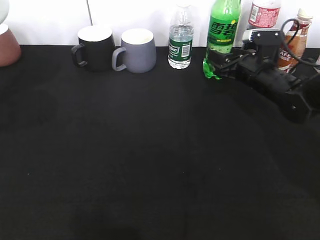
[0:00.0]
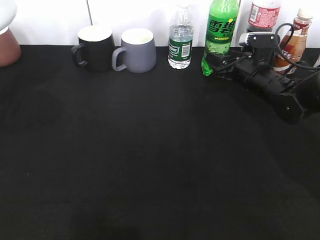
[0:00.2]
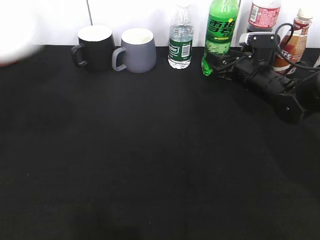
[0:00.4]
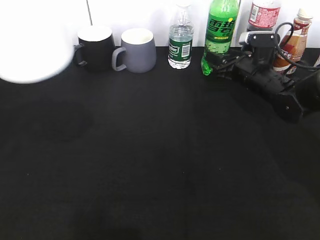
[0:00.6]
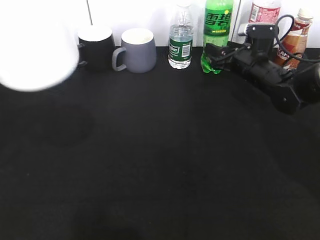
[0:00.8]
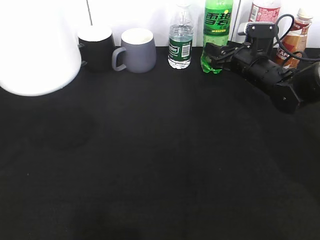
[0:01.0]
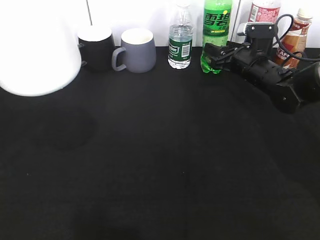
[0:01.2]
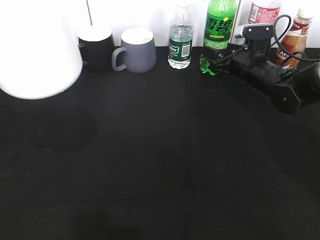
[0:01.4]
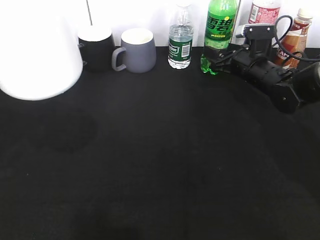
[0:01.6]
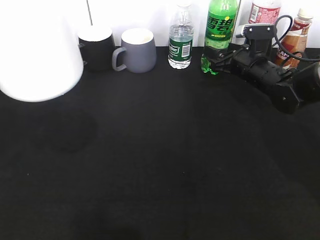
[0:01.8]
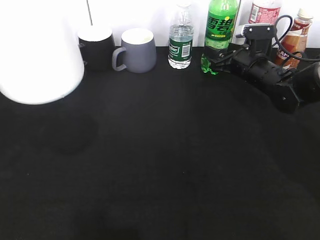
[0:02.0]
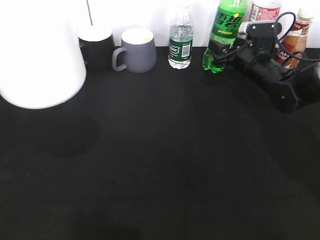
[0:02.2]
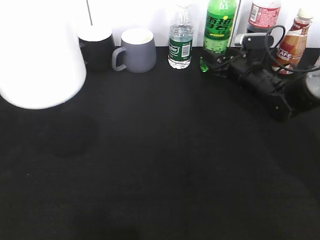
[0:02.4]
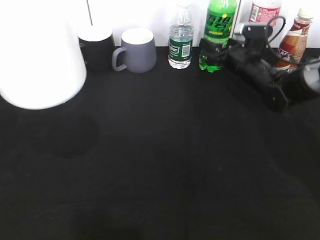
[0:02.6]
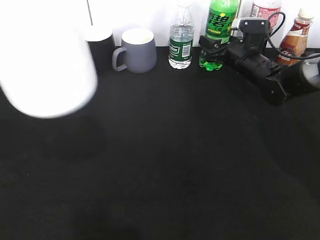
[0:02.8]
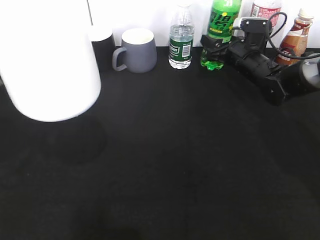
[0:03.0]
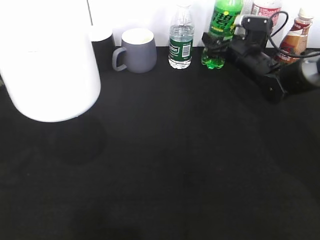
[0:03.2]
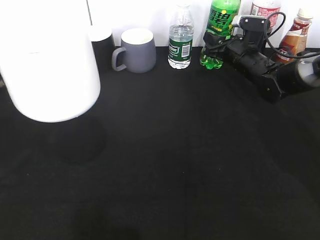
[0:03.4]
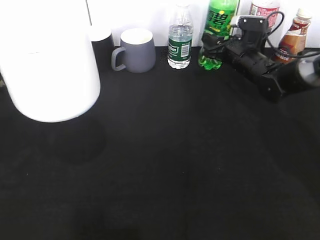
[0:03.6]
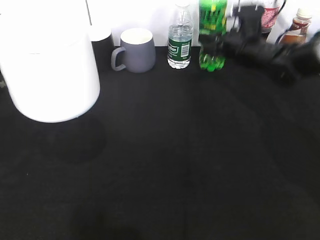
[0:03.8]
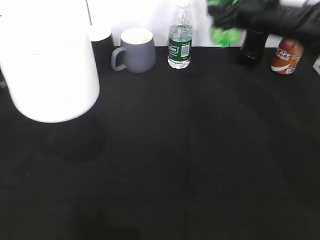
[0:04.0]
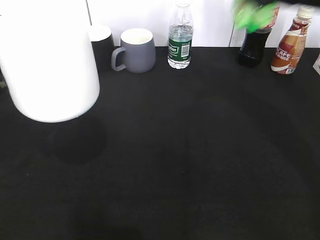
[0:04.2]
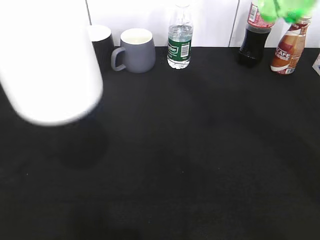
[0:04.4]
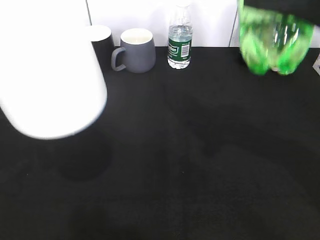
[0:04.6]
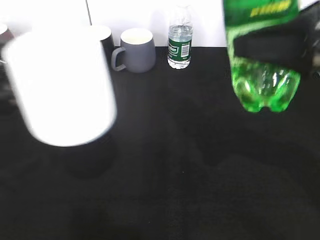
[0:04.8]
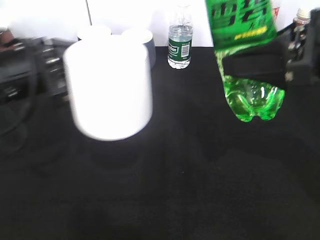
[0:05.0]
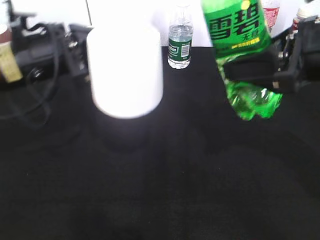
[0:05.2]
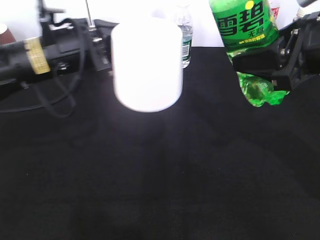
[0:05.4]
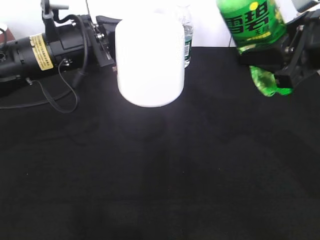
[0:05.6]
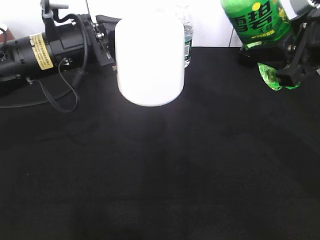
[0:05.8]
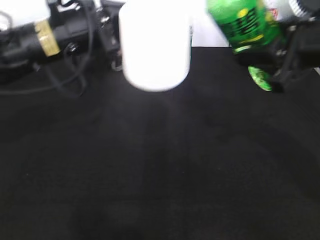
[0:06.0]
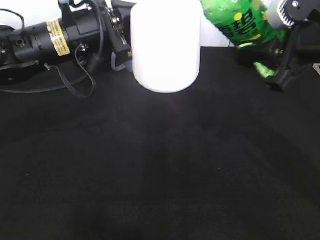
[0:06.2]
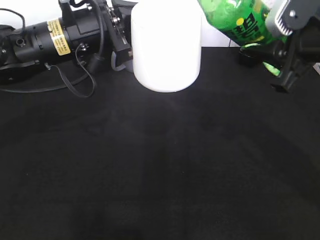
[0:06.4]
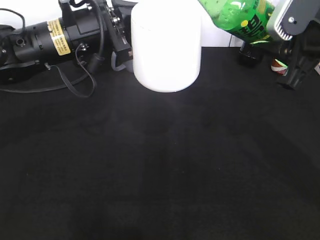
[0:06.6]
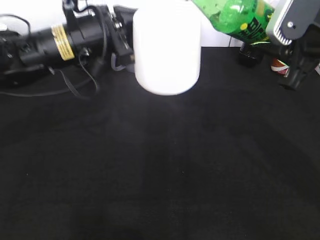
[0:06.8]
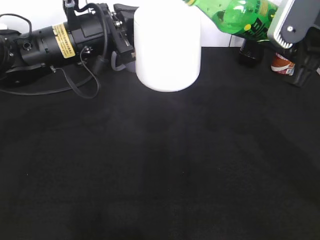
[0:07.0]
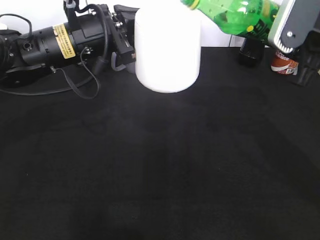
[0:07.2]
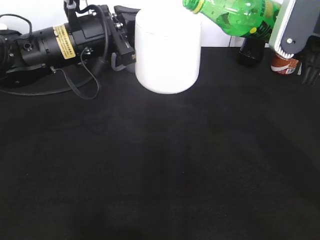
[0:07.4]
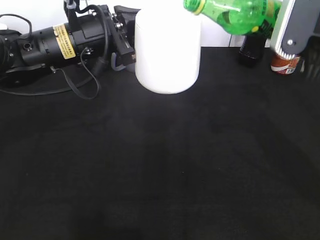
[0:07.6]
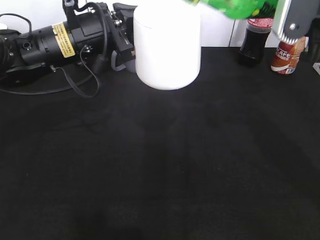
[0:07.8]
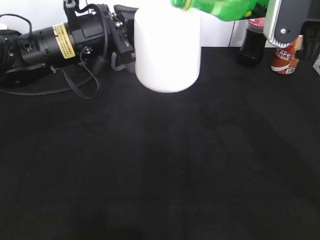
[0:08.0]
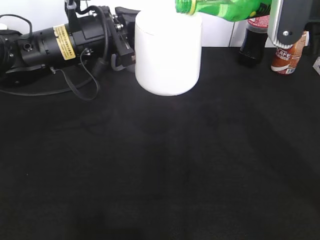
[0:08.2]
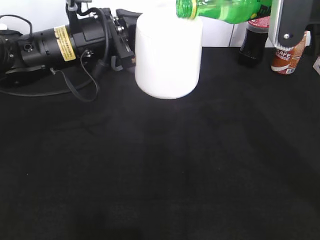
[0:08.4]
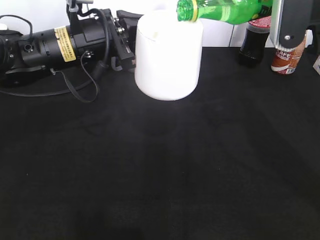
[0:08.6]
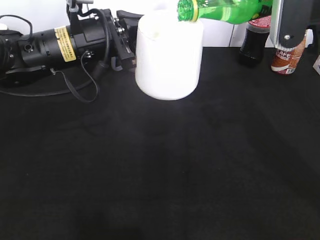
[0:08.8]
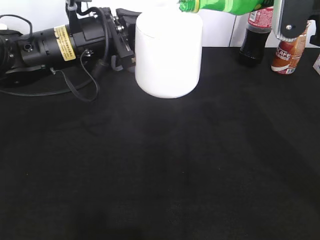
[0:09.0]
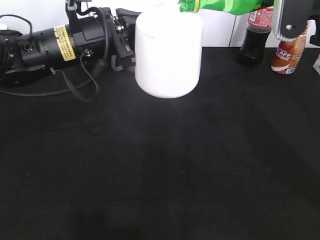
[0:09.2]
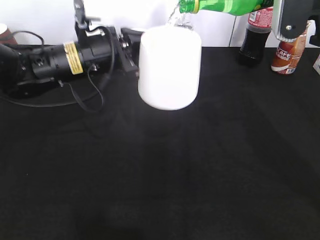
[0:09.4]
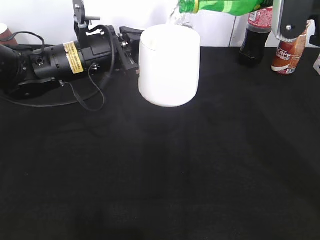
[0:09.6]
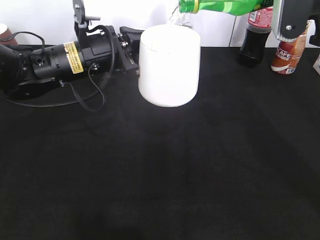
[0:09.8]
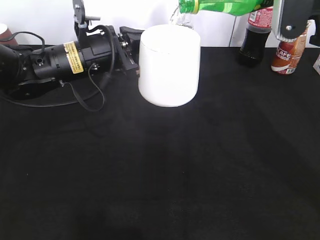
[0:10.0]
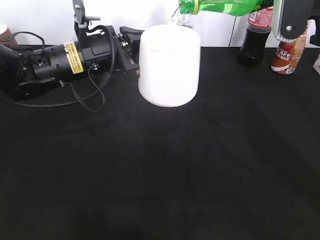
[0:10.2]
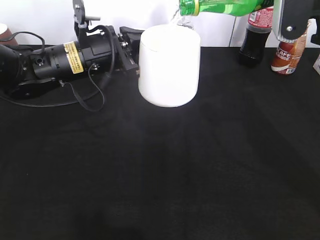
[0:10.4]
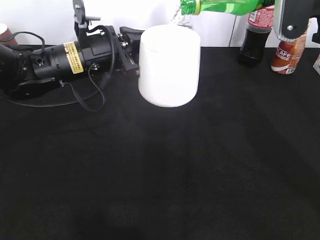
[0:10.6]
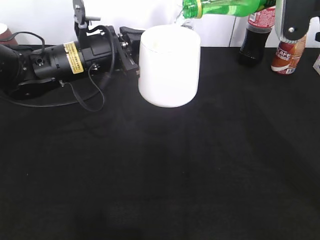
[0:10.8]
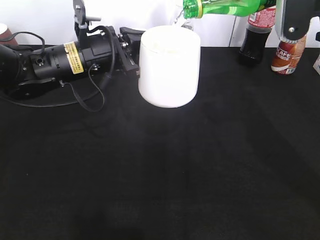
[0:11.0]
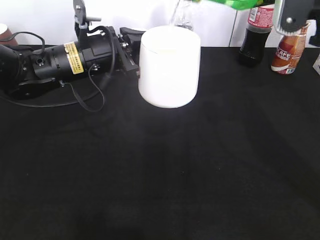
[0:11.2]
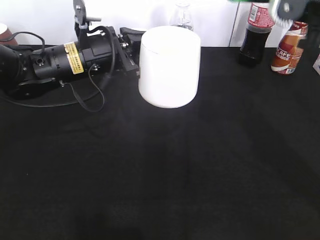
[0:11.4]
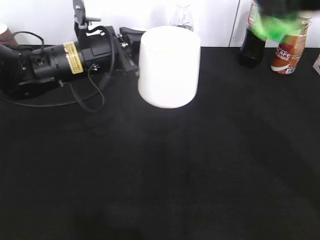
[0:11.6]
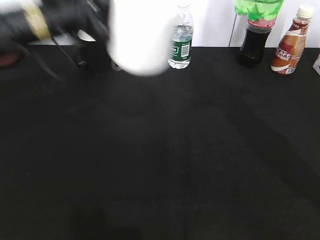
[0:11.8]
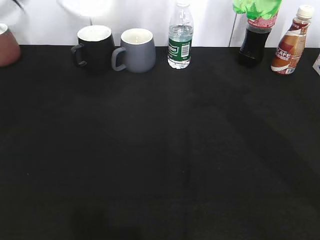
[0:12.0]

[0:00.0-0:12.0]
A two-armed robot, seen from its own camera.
Step, 0:01.0 to 0:10.2: Pour the sprite from bottle to cup with right gripper.
0:00.0 to 0:01.6: The left gripper changes place by about 5 cm.
0:01.6 to 0:03.0: There are only small adjustments of the grippers.
0:03.0 to 0:04.4: The right gripper goes roughly 35 cm upward and backward, and closes up.
0:04.4 to 0:06.0: The right gripper shifts approximately 10 cm downward. Meanwhile the left gripper is displaced forward and to the right by some 15 cm.
0:09.0 to 0:10.4: There are only small adjustments of the grippers.
0:10.4 to 0:12.0: The left gripper travels upward and to the left by about 20 cm.

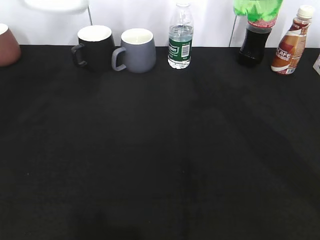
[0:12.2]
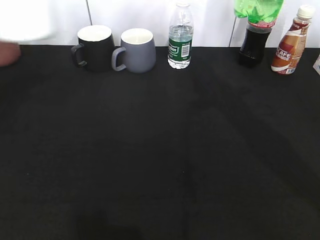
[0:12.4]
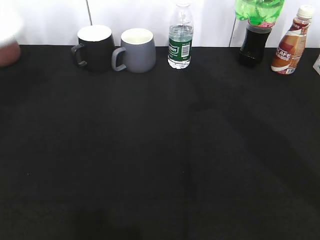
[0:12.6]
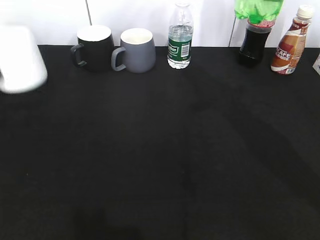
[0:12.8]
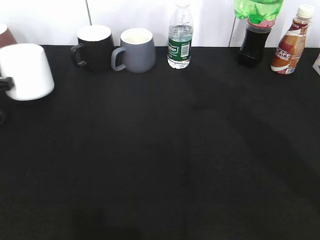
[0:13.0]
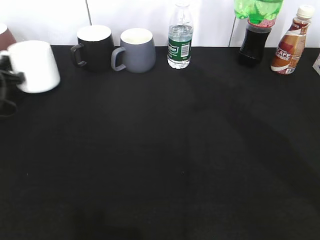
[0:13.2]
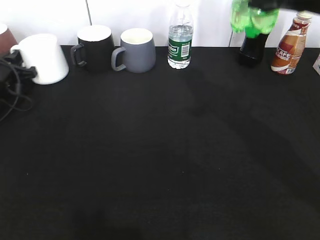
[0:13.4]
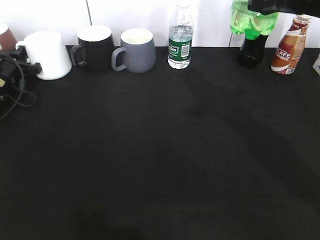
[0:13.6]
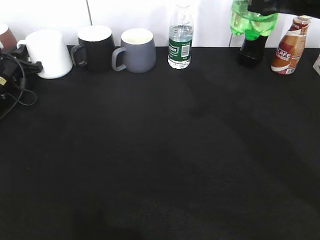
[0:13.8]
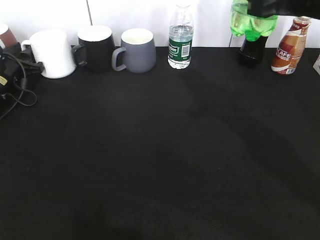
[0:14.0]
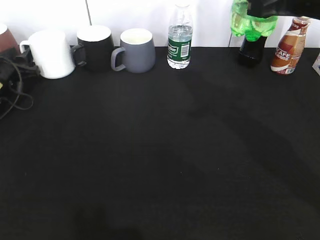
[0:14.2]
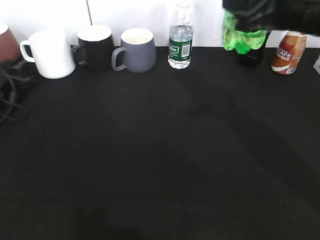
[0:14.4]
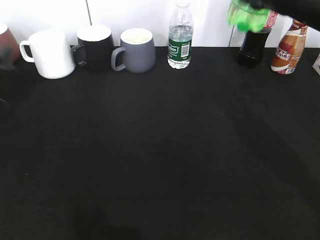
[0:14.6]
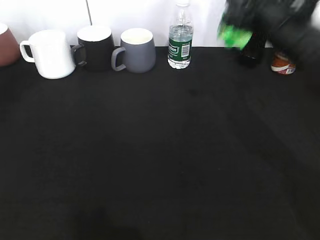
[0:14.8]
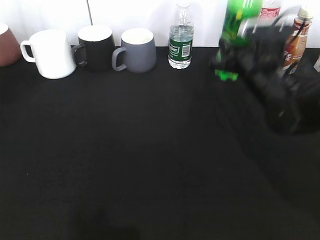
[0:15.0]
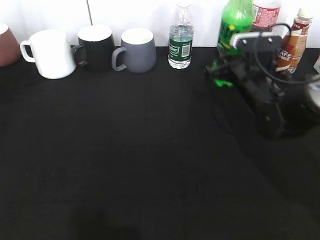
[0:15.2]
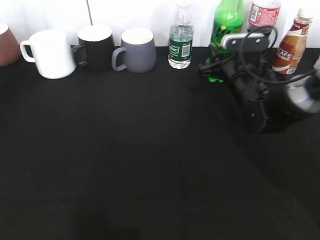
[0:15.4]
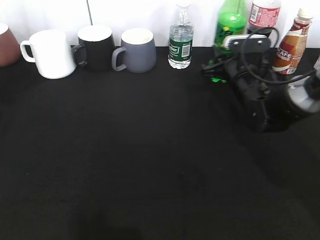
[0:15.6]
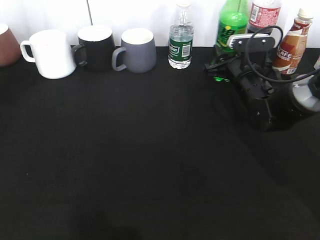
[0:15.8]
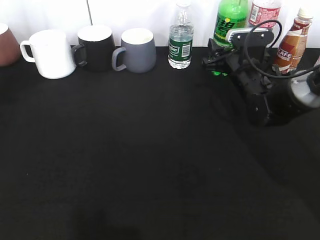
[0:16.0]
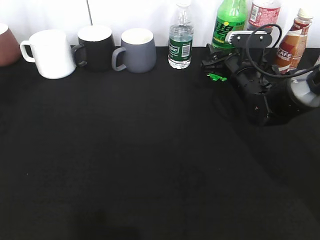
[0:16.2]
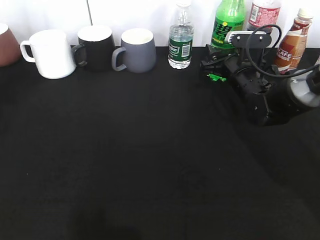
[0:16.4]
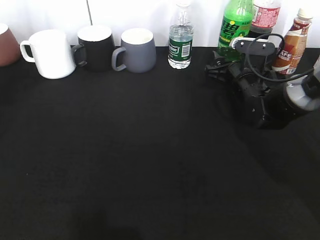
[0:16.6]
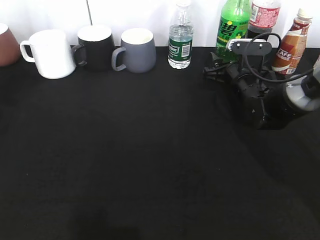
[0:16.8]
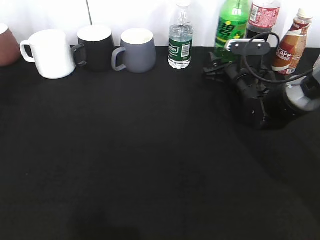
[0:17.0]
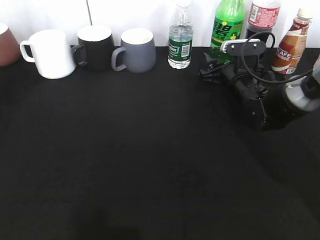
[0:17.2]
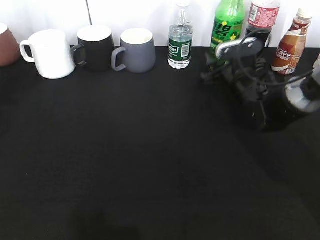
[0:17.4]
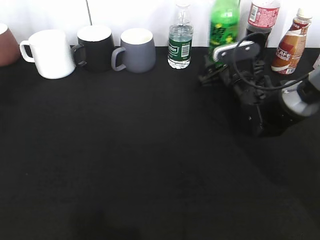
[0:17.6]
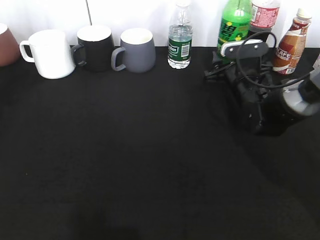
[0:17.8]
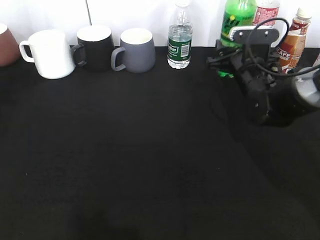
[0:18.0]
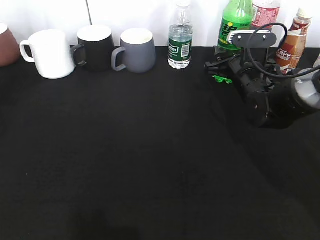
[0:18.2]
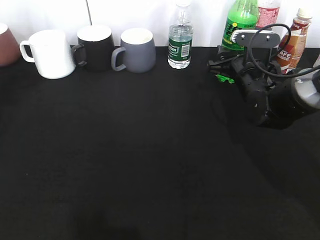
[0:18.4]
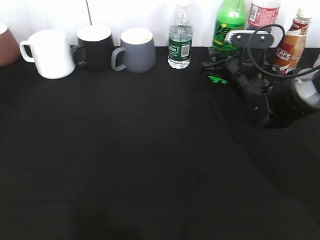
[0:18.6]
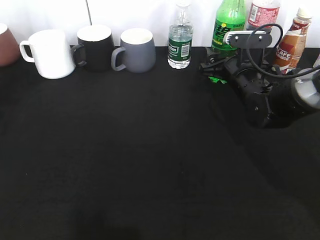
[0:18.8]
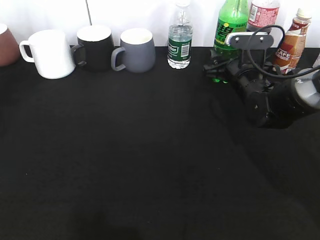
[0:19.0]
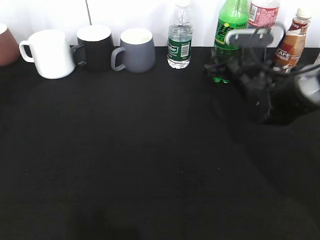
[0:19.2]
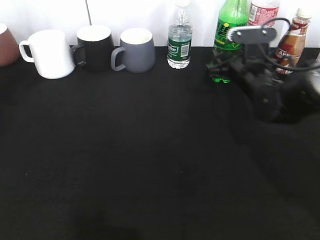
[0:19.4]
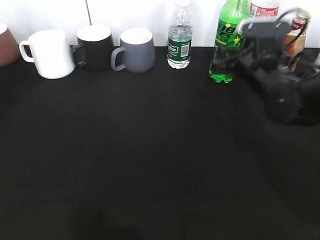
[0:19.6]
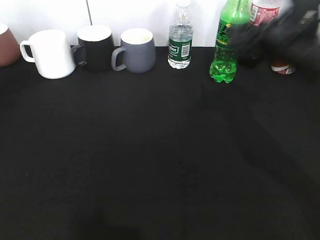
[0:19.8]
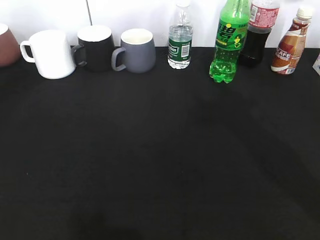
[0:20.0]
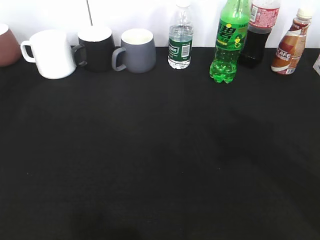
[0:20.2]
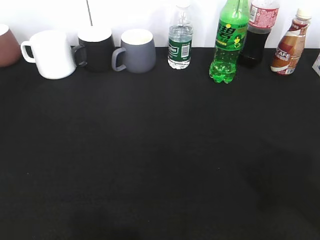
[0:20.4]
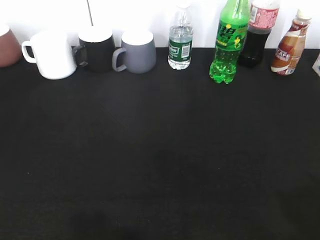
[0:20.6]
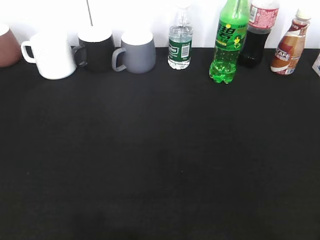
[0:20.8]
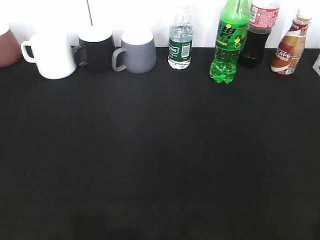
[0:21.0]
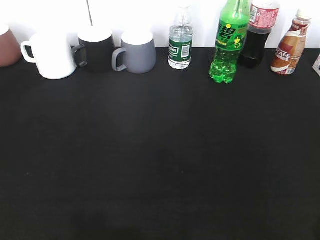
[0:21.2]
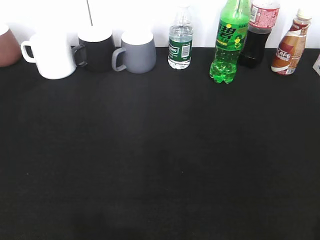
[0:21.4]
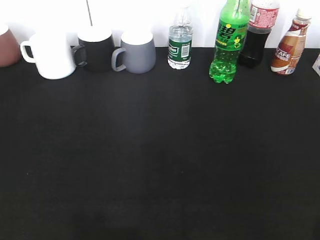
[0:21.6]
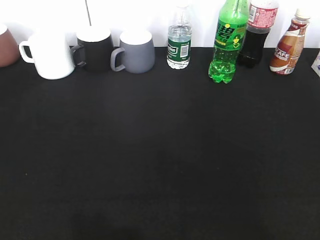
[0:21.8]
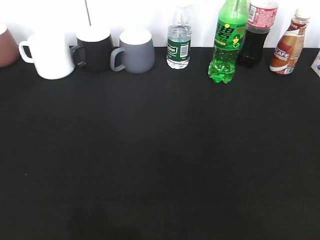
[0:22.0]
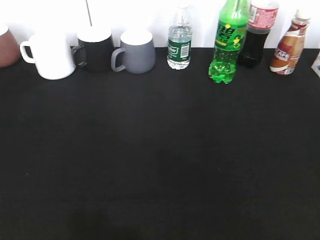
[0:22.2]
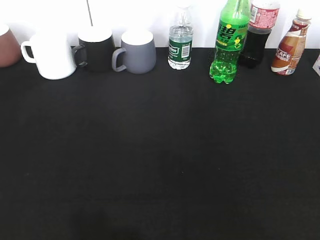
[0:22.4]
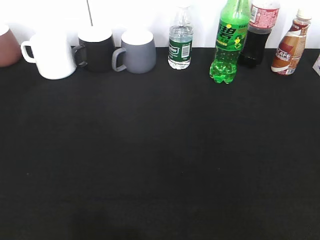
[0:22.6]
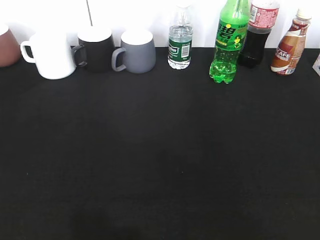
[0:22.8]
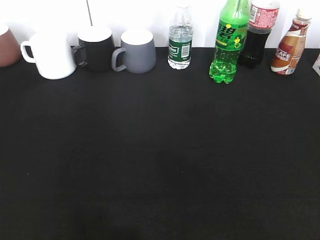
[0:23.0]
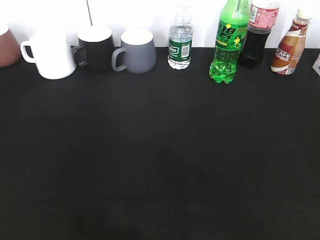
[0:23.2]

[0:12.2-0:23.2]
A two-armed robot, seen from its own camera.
Step, 0:12.2 to 0:14.6: Place the white cup on the table with left gripper.
Step, 0:14.8 to 0:19.6: Place the sprite bottle on the table with right gripper.
0:12.2 to 0:13.8: The left gripper moves downward and forward, about 30 cm.
0:13.8 to 0:15.4: The left gripper goes some 30 cm upward and backward, and opens, while the right gripper heads downward and forward, covering roughly 25 cm.
0:15.4 to 0:17.0: The right gripper opens up.
0:17.0 to 0:18.4: The grippers stay close to where they were, moving slightly.
0:18.4 to 0:20.0: The right gripper goes approximately 30 cm upward and backward.
0:20.0 to 0:21.6: The right gripper heads backward, to the right and downward, covering roughly 25 cm; the left gripper heads downward and backward, covering some 15 cm, and opens, then closes again.
